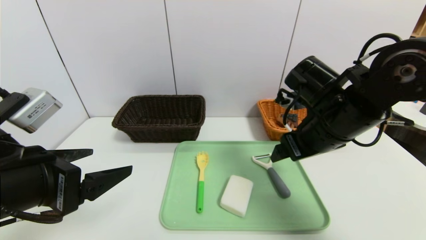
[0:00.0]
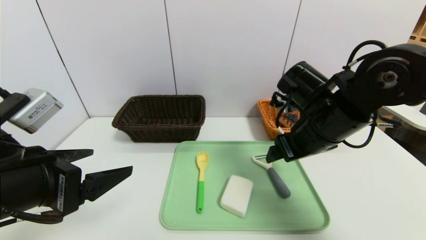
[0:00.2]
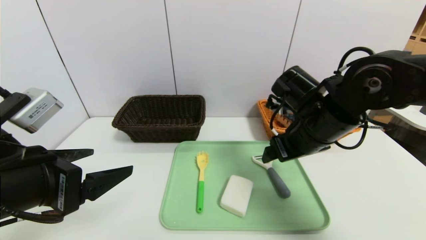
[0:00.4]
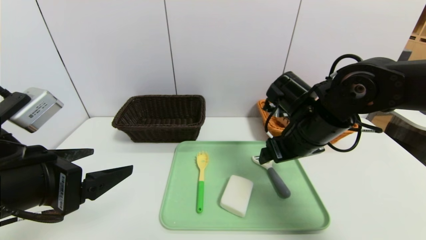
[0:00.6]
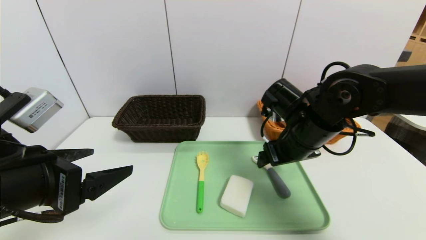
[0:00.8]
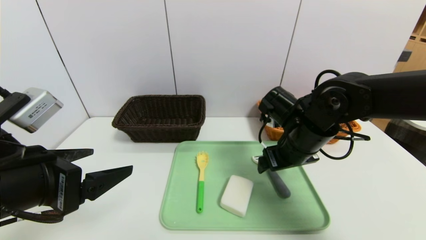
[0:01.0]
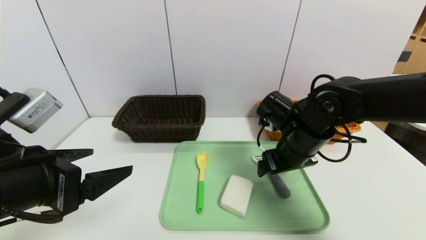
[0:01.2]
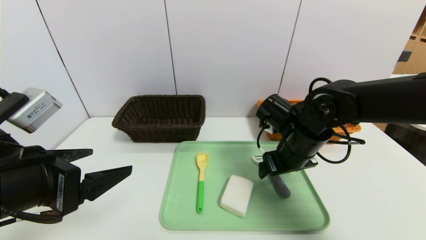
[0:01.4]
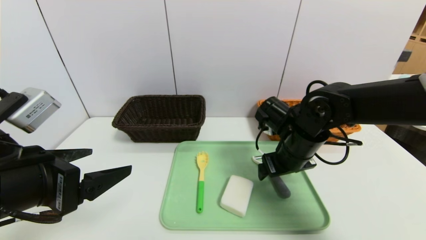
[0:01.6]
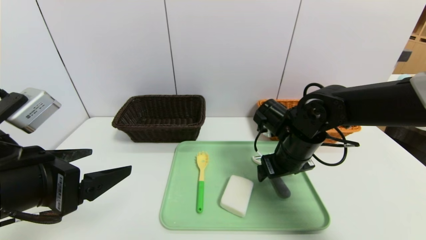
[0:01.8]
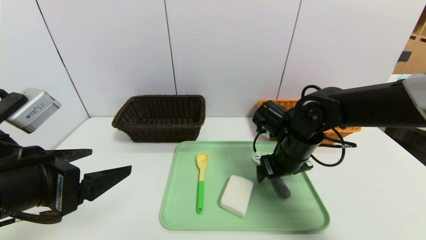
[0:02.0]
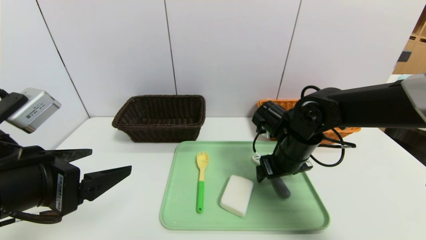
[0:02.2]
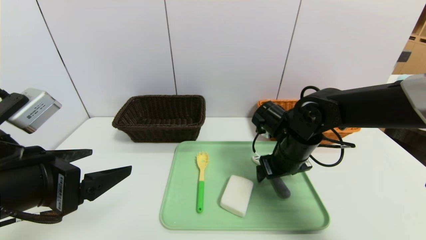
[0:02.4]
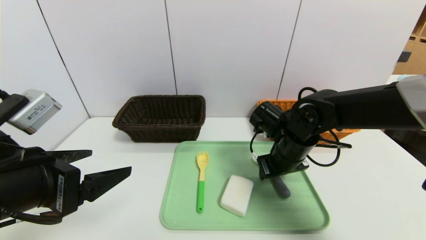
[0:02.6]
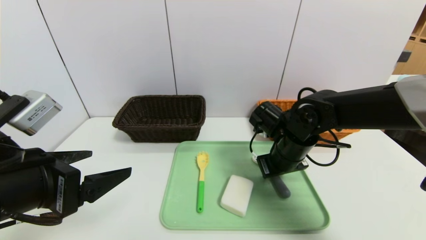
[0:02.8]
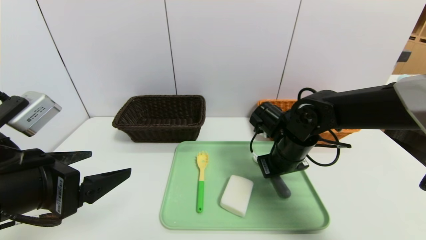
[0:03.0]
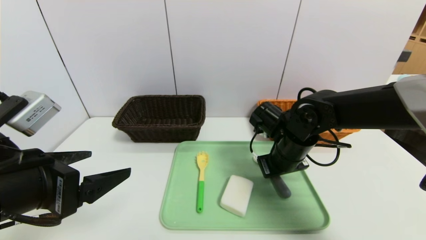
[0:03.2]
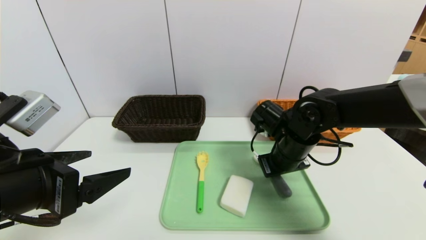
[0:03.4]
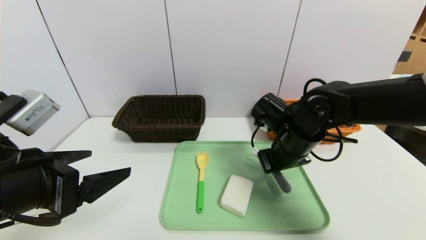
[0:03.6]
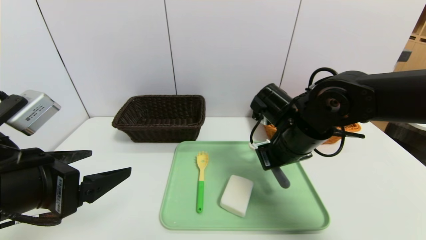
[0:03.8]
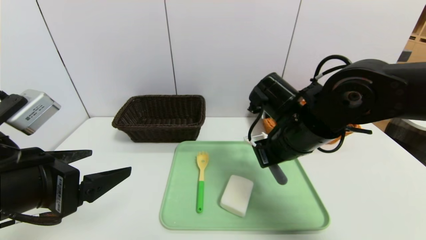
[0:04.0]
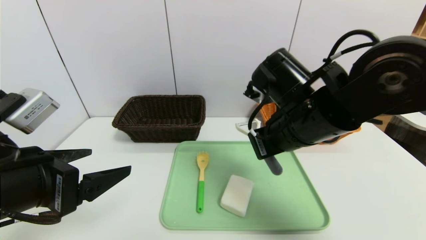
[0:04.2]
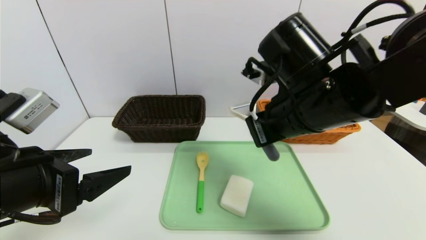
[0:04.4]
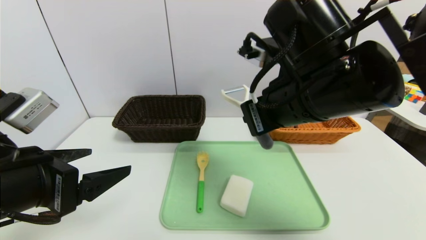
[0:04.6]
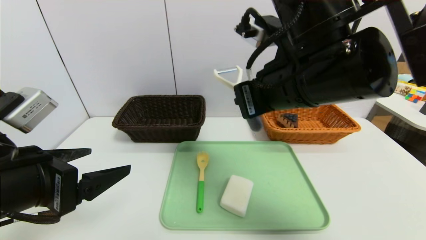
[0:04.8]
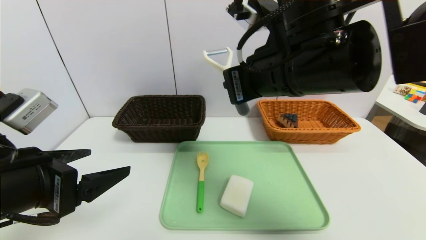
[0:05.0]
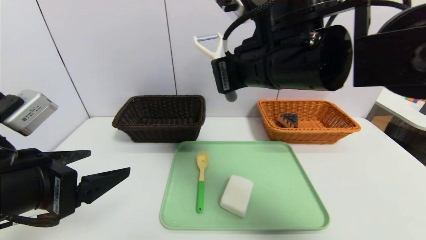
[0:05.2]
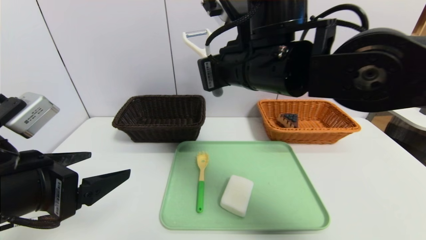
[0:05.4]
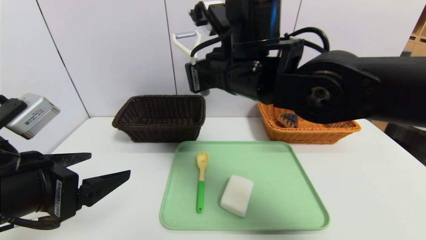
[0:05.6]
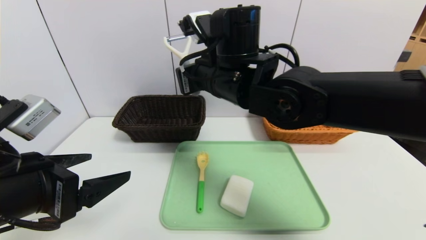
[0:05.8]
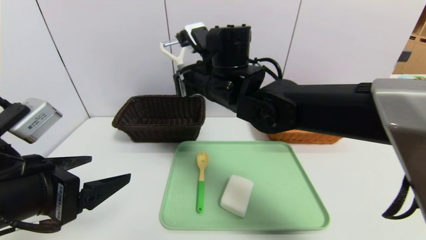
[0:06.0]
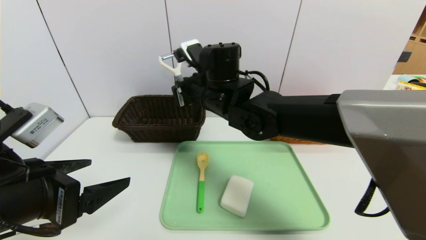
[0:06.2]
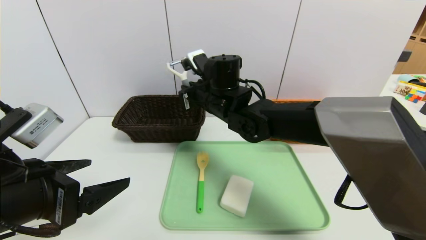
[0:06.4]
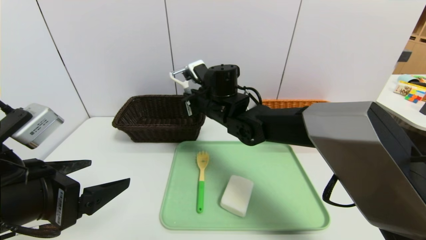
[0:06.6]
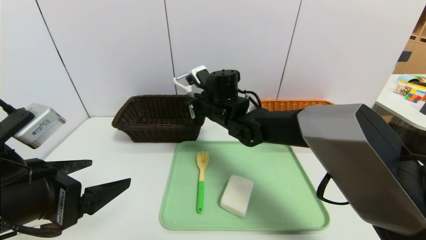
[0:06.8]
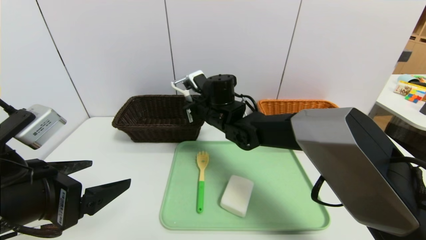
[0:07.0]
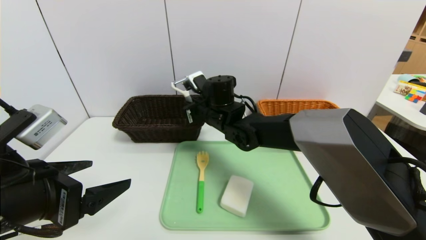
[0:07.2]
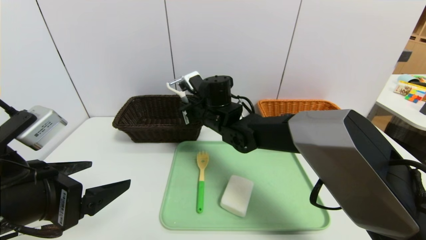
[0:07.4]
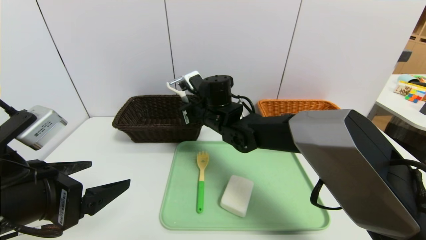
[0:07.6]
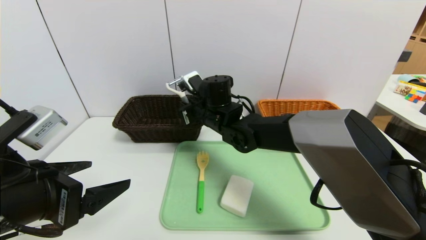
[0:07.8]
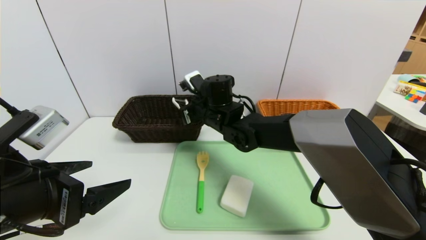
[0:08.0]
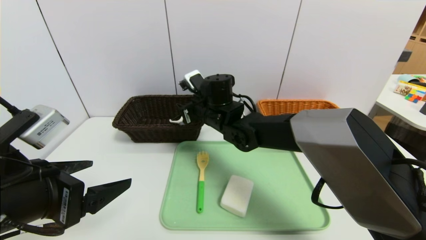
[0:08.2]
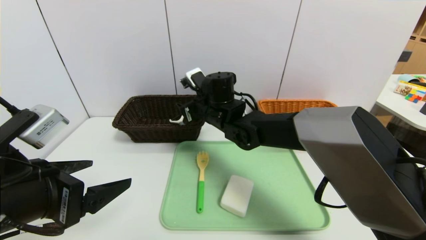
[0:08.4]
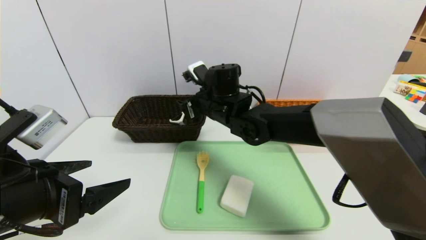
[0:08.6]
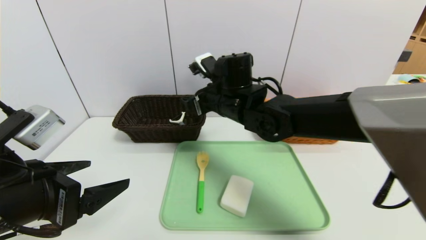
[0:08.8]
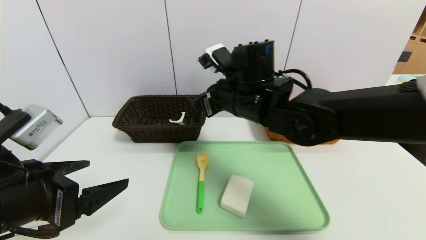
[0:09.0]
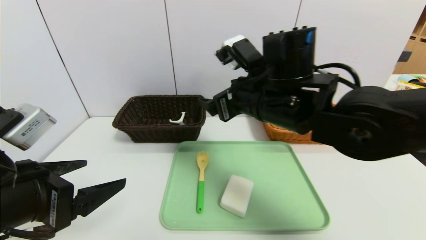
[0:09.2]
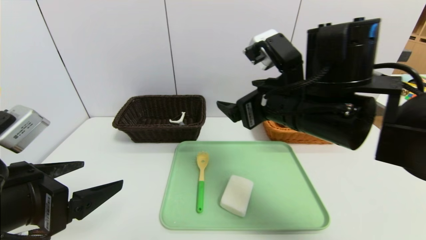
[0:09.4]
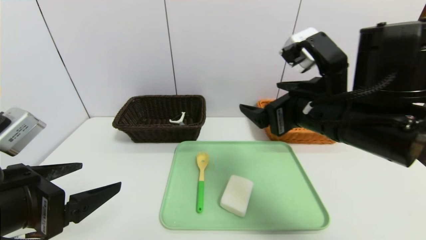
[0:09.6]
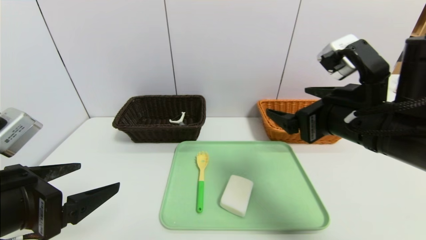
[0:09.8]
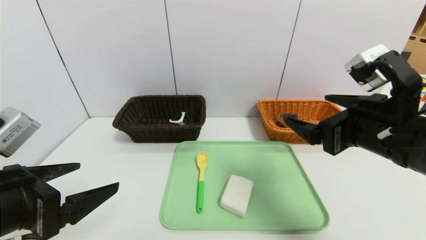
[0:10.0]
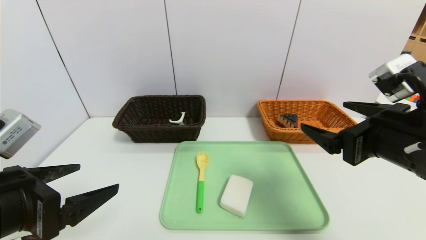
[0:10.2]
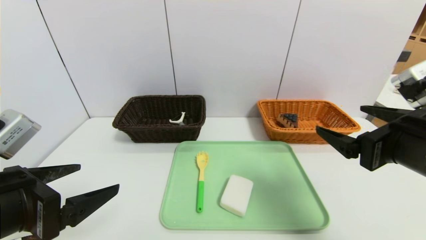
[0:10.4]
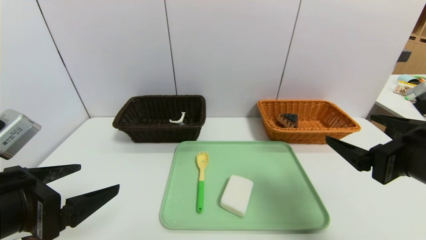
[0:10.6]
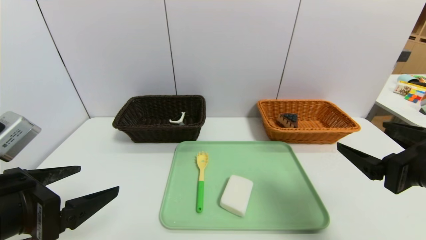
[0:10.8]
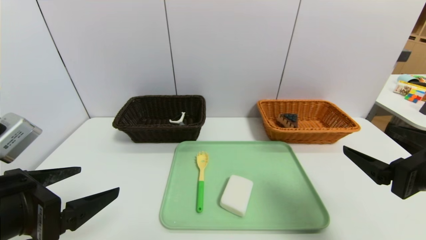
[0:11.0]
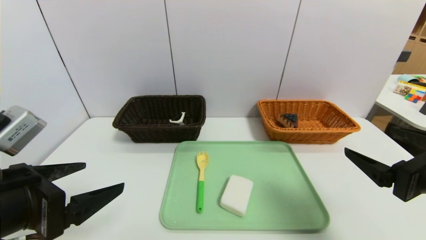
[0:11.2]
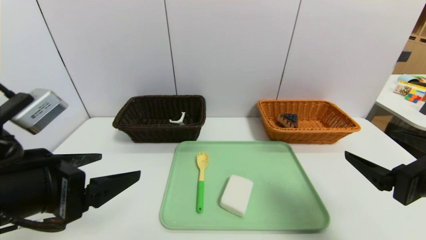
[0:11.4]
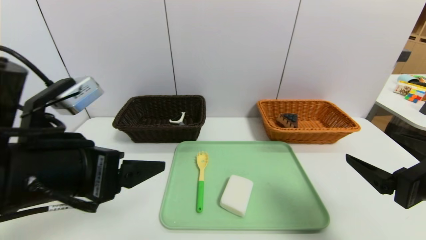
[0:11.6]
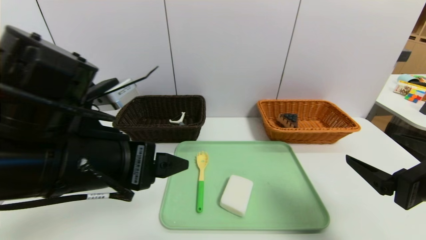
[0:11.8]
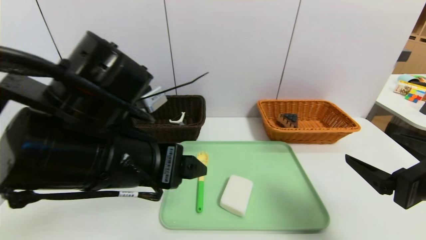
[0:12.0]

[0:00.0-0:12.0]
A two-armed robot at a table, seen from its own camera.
Task of the whole recording: place the food in the right basket with the right gripper, and place the non food items in the left basket with the left gripper.
0:00.0 to 0:01.6: The right gripper moves downward, roughly 10 cm.
0:01.6 to 0:03.0: The right gripper closes.
0:03.0 to 0:04.4: The right gripper is displaced upward and backward by some 15 cm.
0:04.4 to 0:06.0: The right gripper travels to the left and forward by approximately 15 cm.
0:06.0 to 0:07.6: The right gripper shifts about 10 cm downward and forward.
0:07.6 to 0:09.0: The right gripper travels backward, upward and to the right by about 10 cm, and opens up.
0:09.0 to 0:10.4: The right gripper shifts approximately 25 cm to the right and backward.
0:10.4 to 0:12.0: The right gripper ends up about 5 cm from where it was. Meanwhile the left gripper goes some 15 cm to the right and forward.

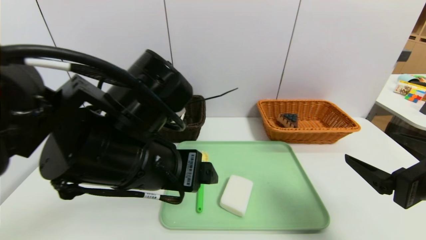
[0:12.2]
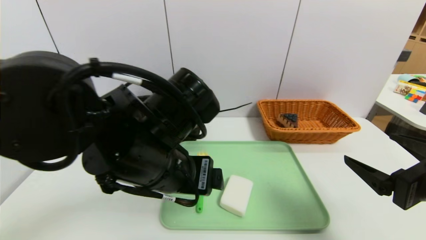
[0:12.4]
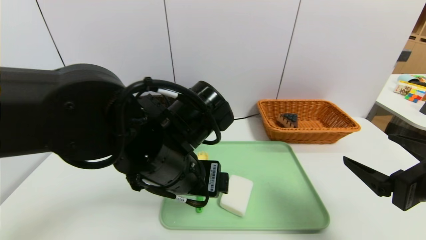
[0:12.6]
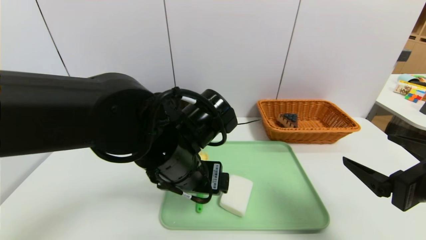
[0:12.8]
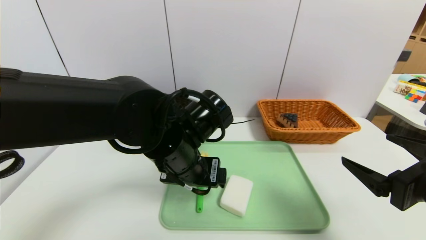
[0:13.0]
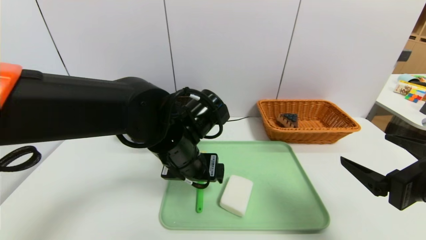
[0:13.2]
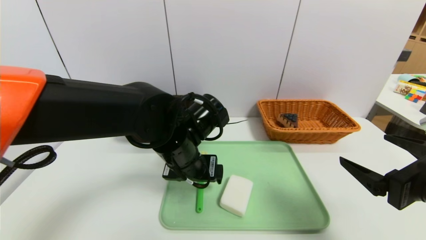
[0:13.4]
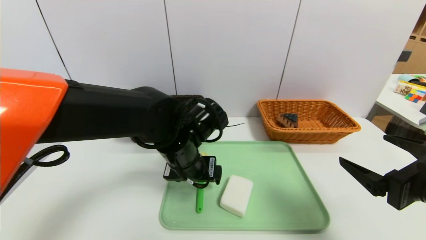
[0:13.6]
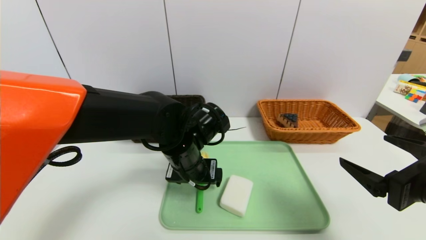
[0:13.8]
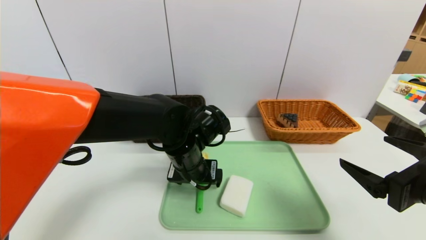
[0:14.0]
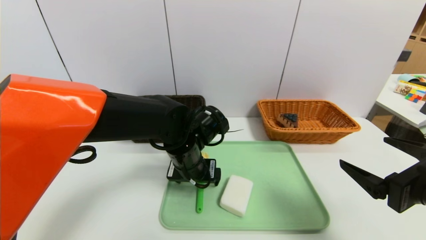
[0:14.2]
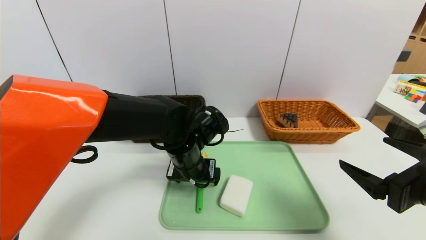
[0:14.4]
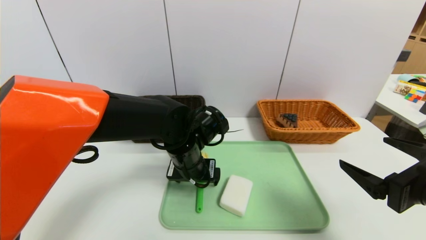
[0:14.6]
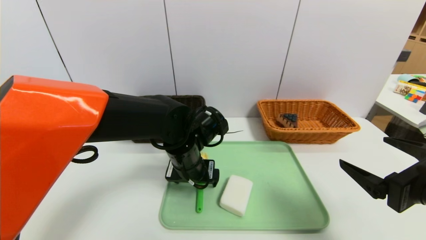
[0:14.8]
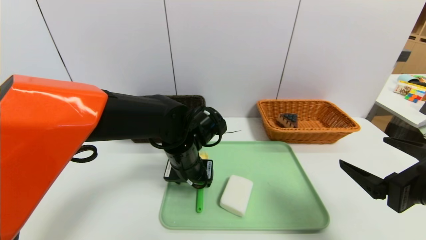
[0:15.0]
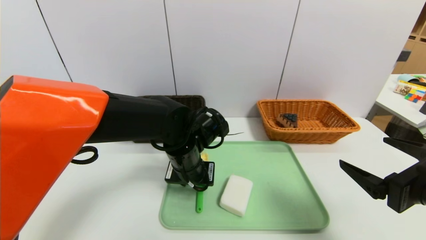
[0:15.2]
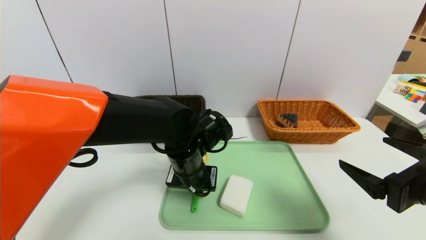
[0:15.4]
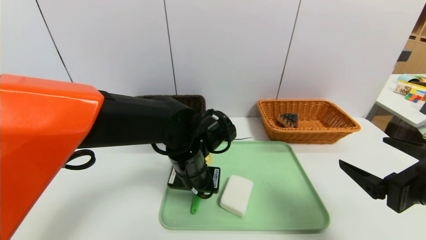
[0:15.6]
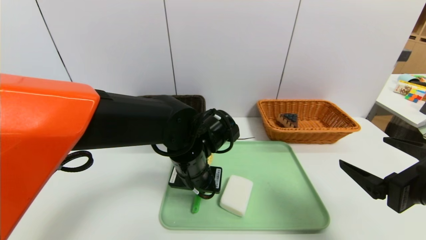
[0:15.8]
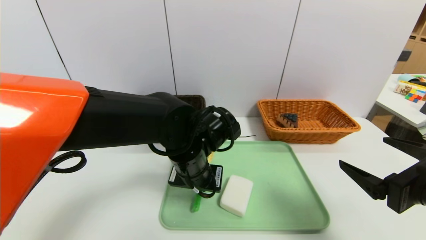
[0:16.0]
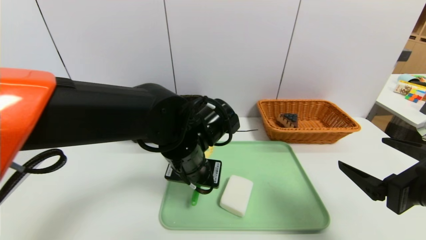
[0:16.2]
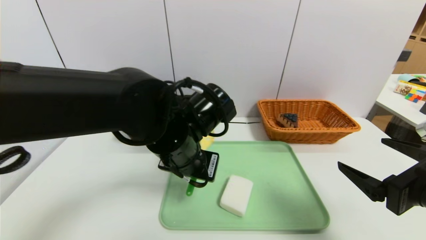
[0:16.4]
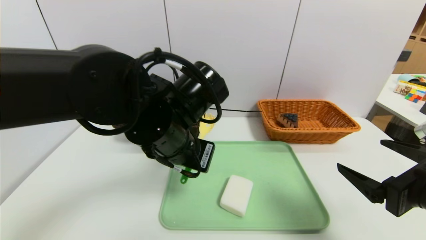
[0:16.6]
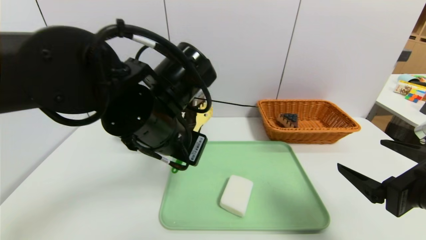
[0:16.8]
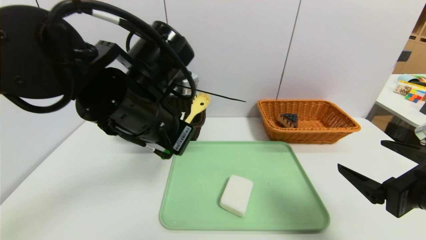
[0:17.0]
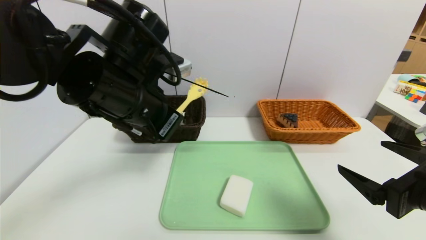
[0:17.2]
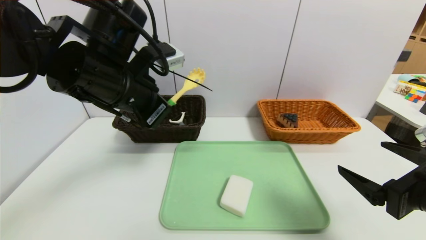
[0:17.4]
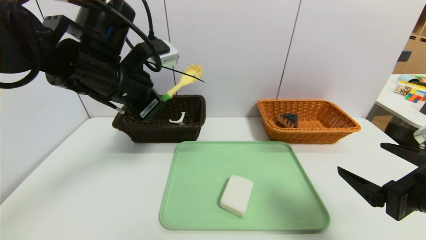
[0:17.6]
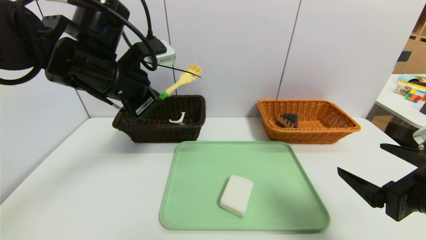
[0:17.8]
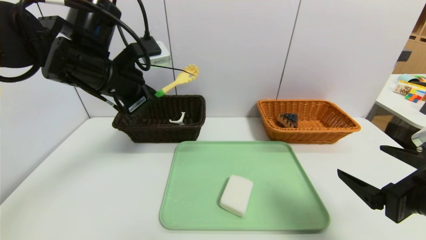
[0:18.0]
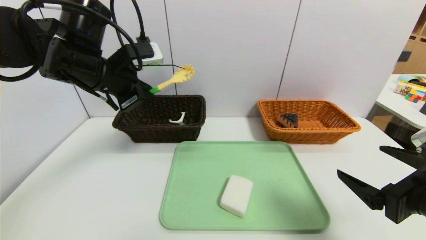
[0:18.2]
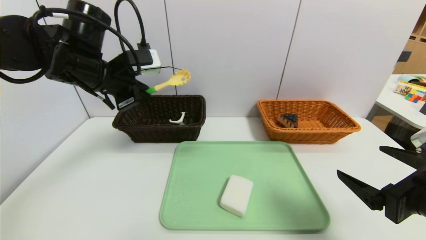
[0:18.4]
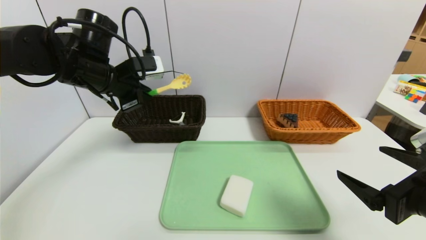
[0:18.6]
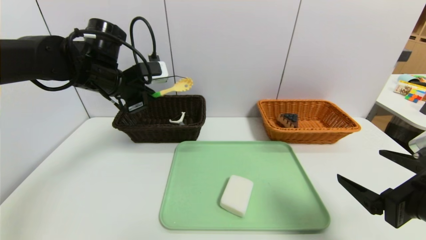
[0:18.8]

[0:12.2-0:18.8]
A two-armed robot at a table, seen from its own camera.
Task of the whole recording: place the food in the right basket with the right gripper, and place the non food items in the left basket with the left gripper.
0:12.2 to 0:13.8: The left gripper moves forward and downward, some 15 cm.
0:13.8 to 0:15.4: The left gripper closes its fingers.
0:15.4 to 0:17.2: The left gripper travels upward and to the left by some 15 cm.
0:17.2 to 0:18.8: The left gripper heads forward and to the left, covering approximately 15 cm.
